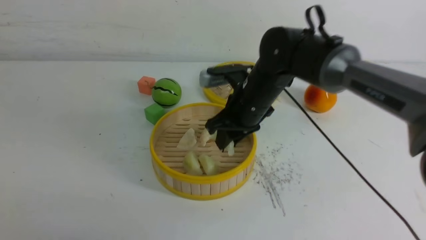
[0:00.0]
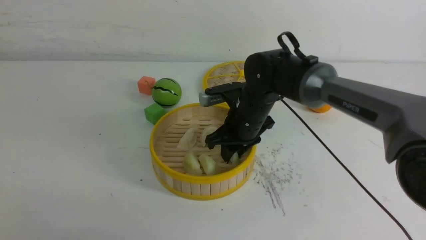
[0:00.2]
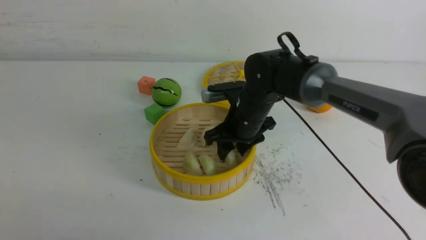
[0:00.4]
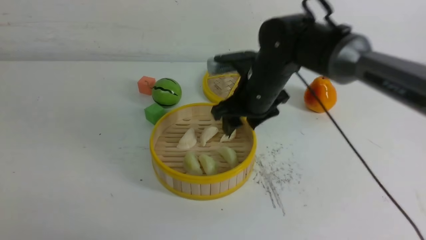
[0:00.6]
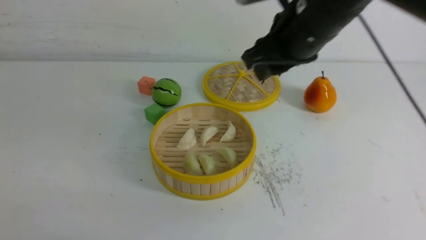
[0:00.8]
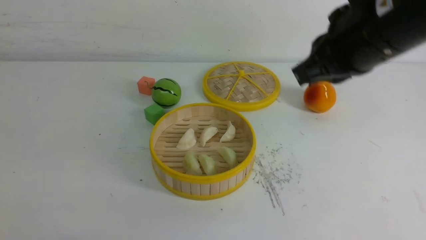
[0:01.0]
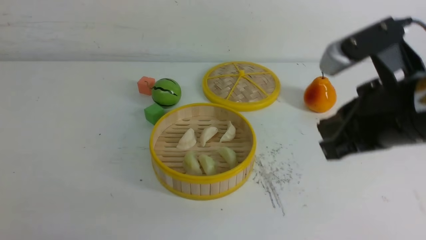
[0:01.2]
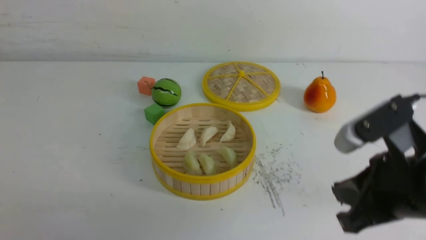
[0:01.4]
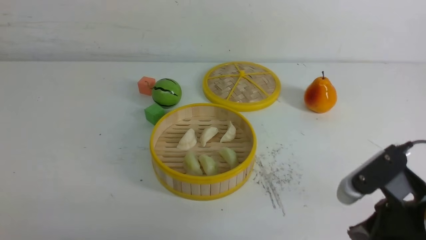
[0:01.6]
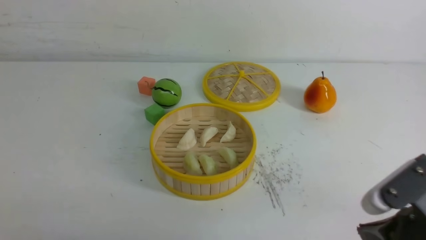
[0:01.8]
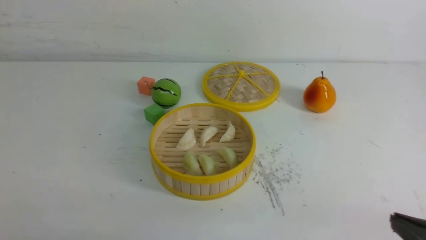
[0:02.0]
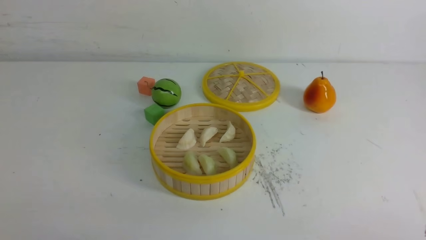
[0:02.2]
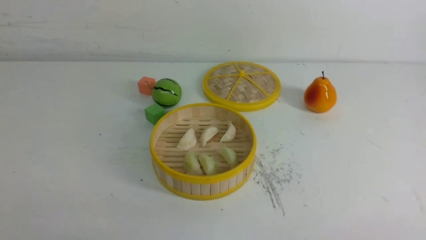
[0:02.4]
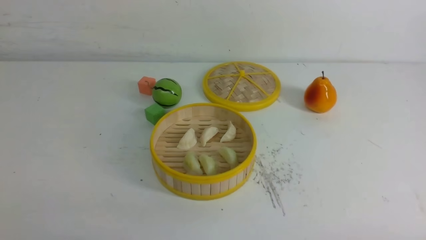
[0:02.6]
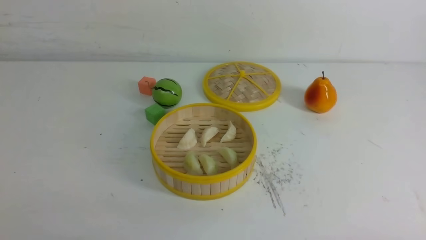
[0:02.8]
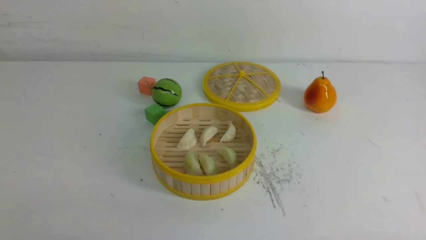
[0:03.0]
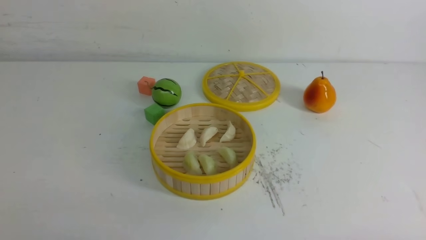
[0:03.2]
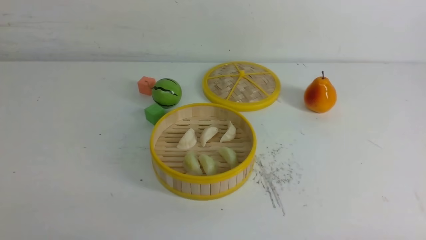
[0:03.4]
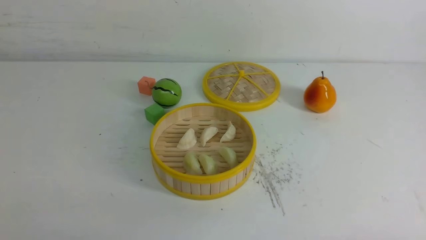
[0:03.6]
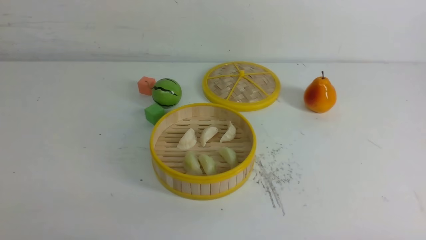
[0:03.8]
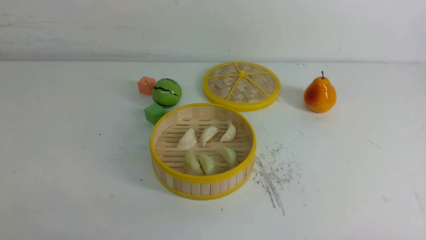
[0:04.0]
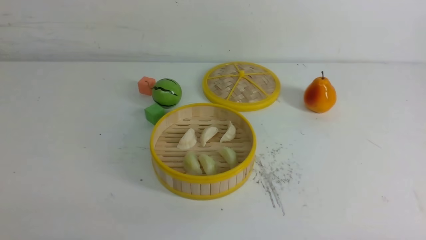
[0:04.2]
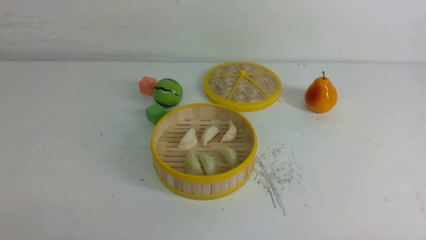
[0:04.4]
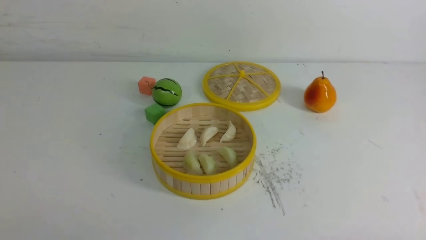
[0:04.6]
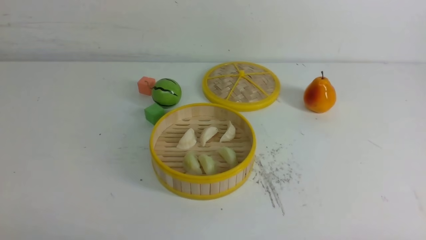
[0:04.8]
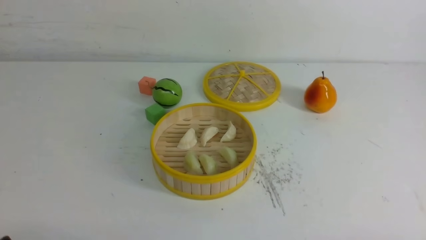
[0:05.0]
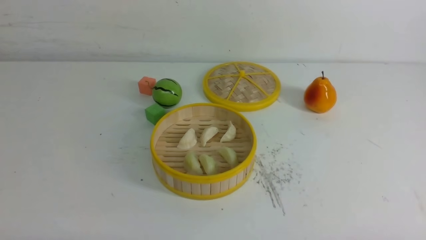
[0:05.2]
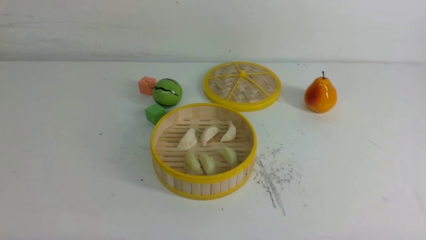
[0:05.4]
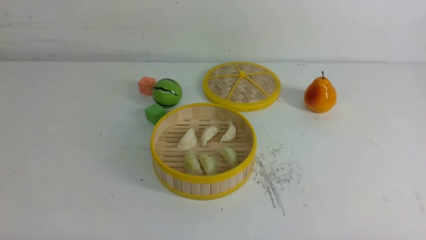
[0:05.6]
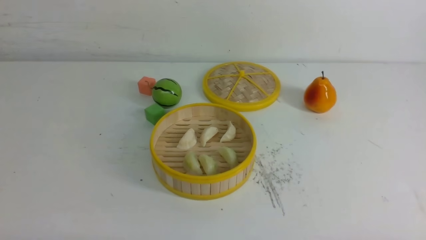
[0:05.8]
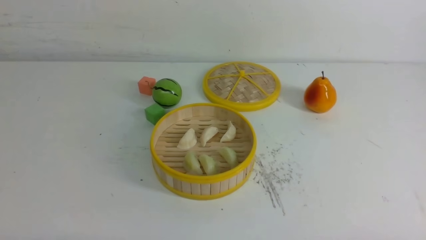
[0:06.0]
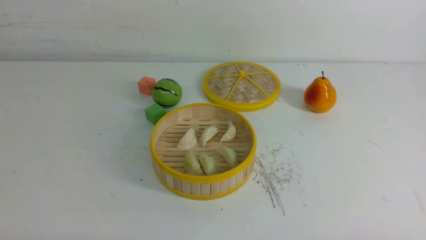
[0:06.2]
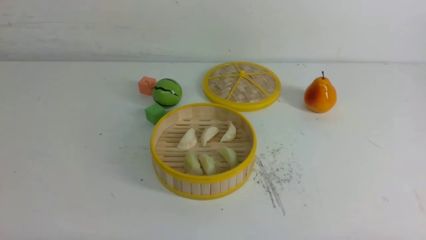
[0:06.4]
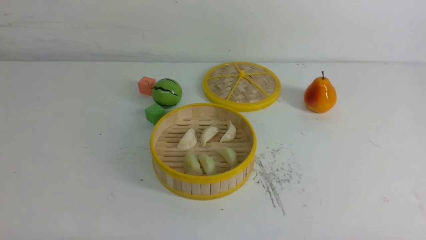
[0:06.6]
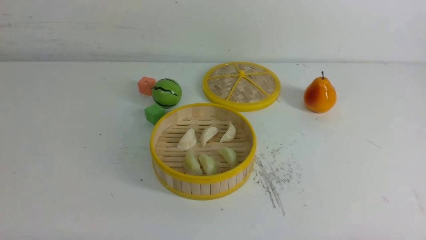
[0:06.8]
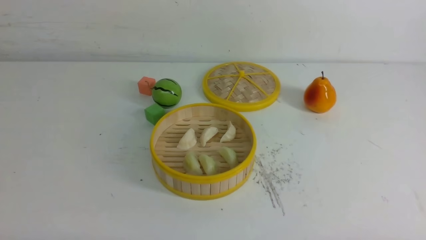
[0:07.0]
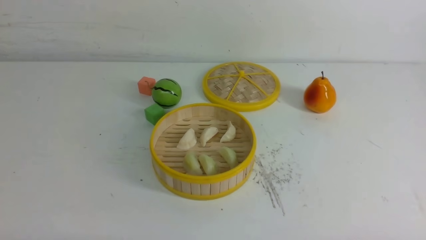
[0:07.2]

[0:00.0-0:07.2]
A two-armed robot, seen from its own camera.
Task of the whole recording: put the dumplings into the steamer on the white table.
0:00.0 to 0:01.4: The right gripper goes roughly 25 cm backward and to the right, and closes its fingers.
0:01.4 to 0:02.8: The right gripper heads backward, to the right and downward, covering approximately 20 cm.
0:05.8 to 0:07.2: Both grippers stay about where they are.

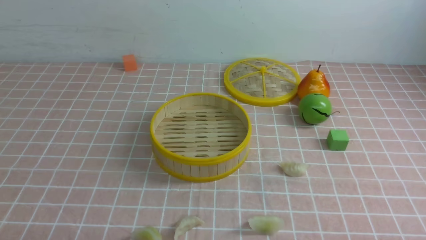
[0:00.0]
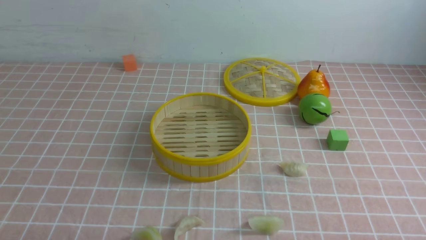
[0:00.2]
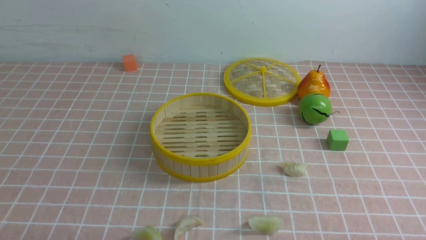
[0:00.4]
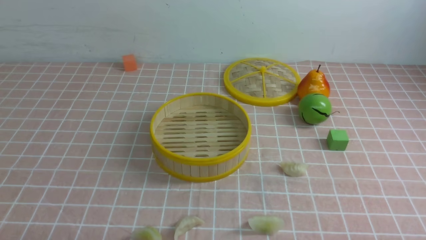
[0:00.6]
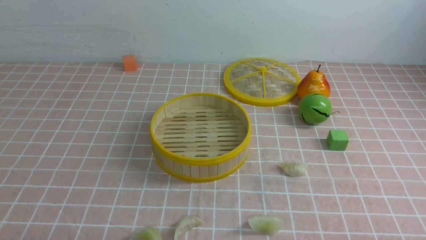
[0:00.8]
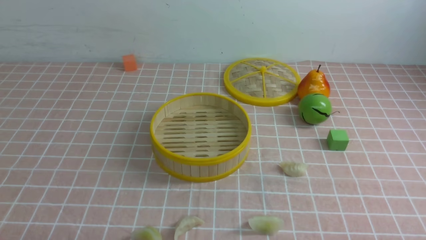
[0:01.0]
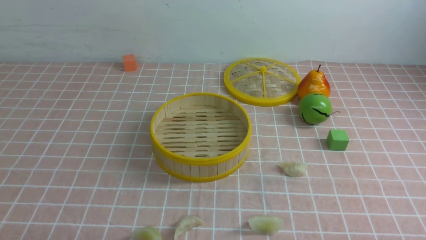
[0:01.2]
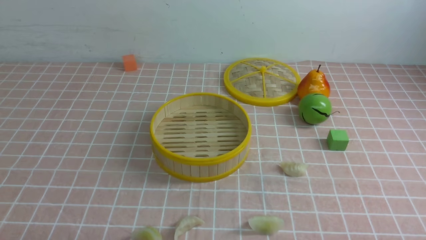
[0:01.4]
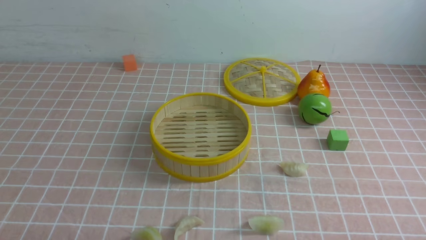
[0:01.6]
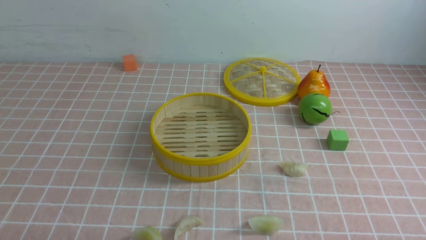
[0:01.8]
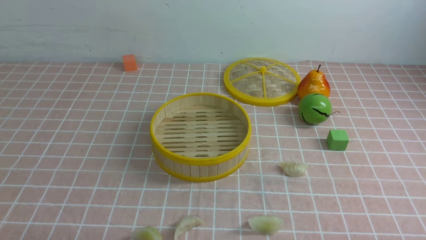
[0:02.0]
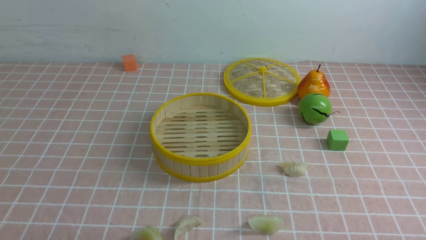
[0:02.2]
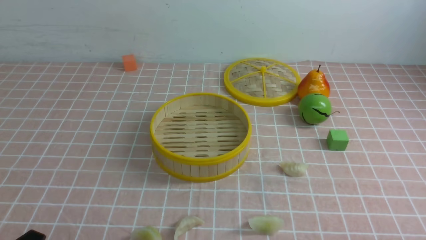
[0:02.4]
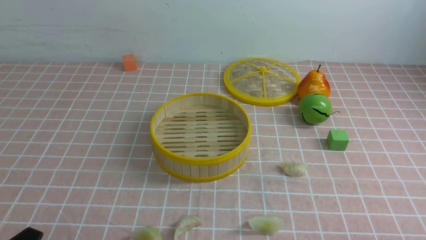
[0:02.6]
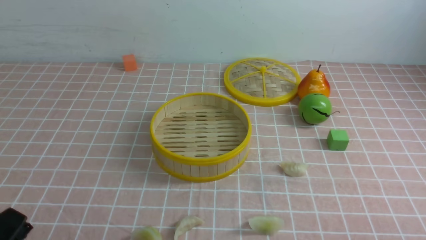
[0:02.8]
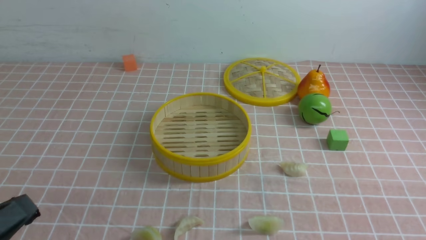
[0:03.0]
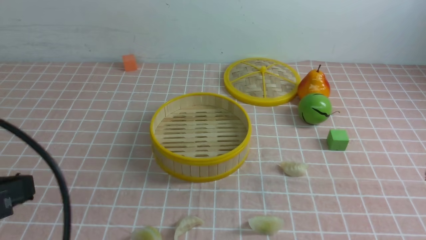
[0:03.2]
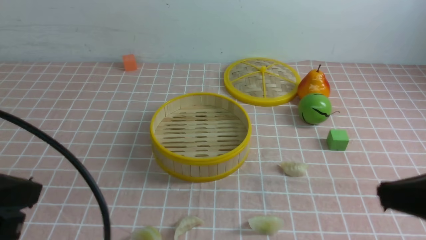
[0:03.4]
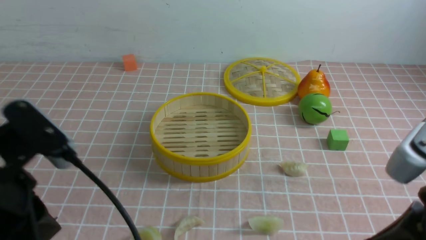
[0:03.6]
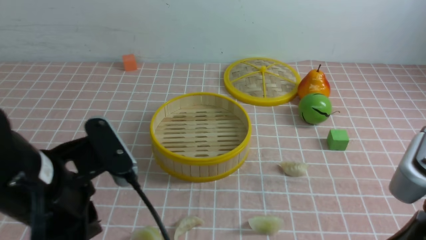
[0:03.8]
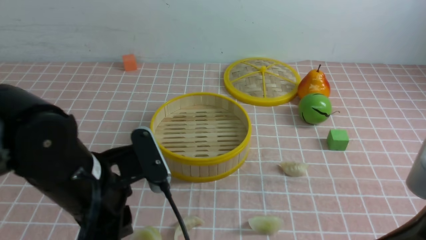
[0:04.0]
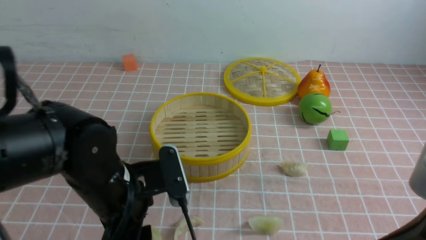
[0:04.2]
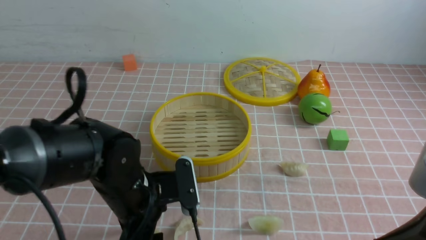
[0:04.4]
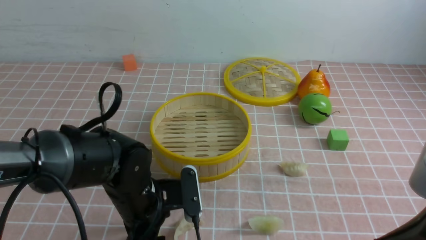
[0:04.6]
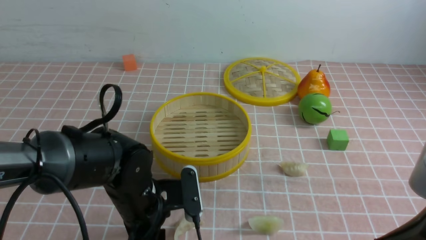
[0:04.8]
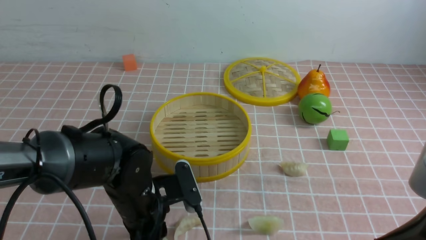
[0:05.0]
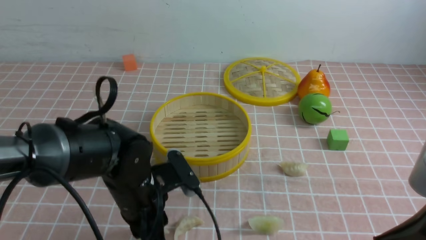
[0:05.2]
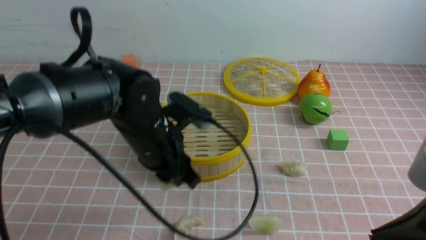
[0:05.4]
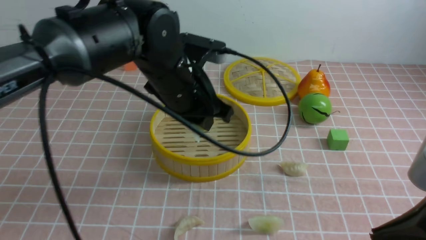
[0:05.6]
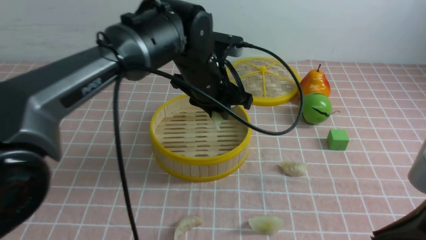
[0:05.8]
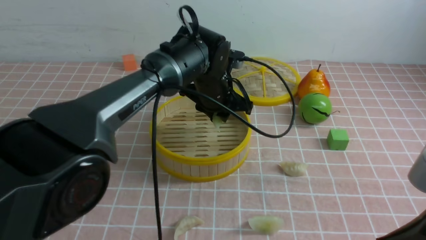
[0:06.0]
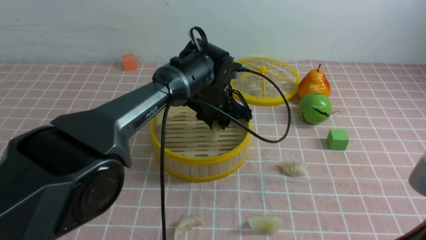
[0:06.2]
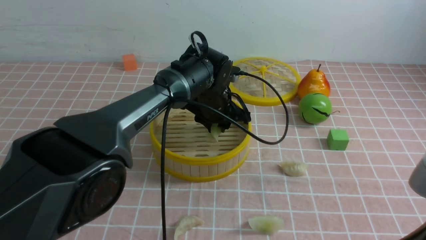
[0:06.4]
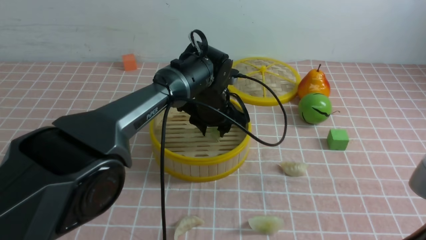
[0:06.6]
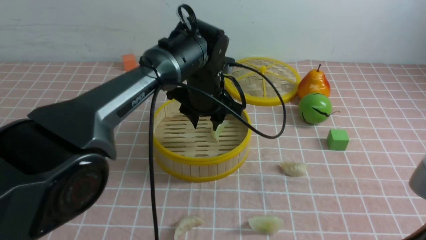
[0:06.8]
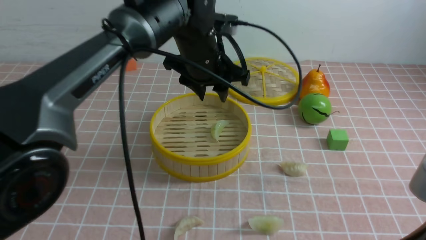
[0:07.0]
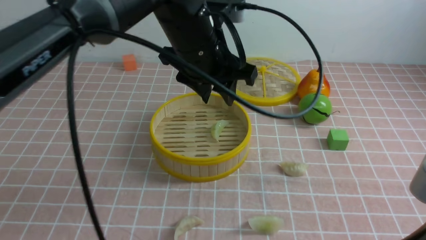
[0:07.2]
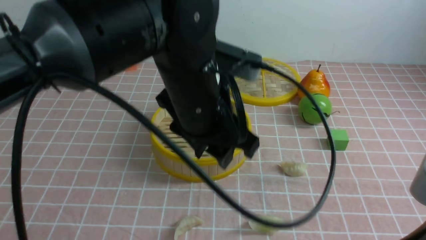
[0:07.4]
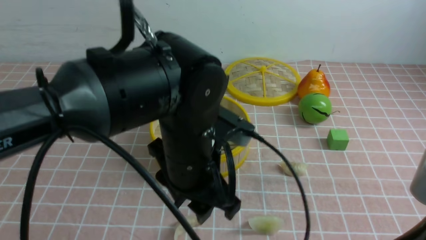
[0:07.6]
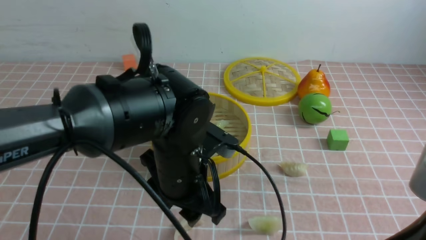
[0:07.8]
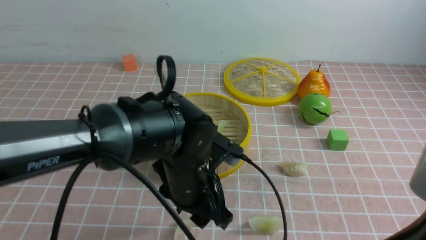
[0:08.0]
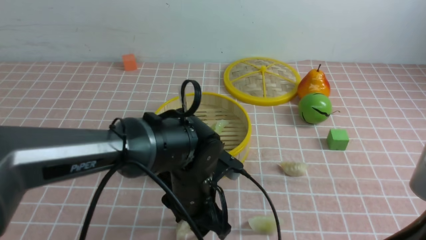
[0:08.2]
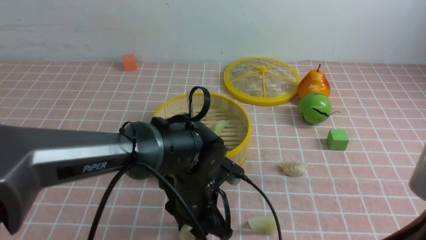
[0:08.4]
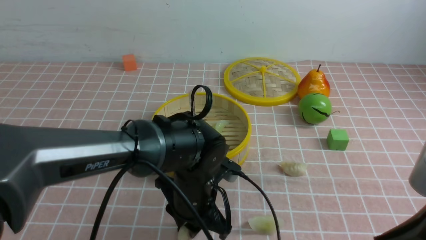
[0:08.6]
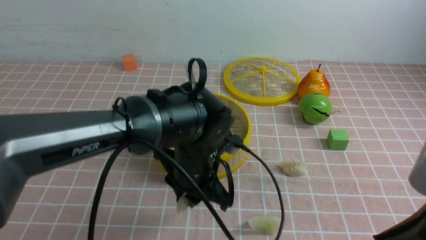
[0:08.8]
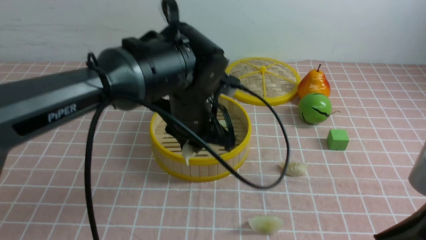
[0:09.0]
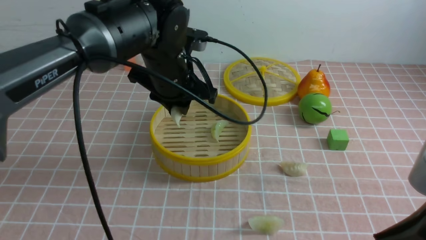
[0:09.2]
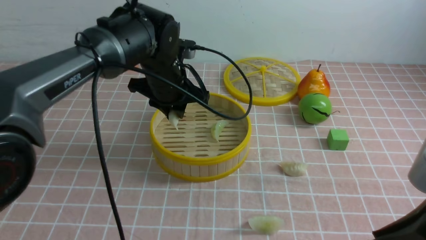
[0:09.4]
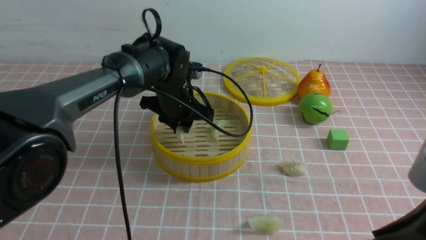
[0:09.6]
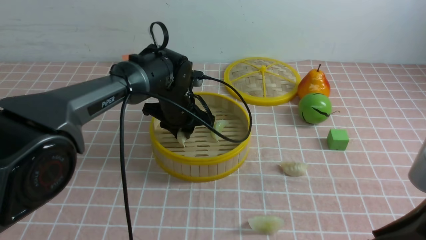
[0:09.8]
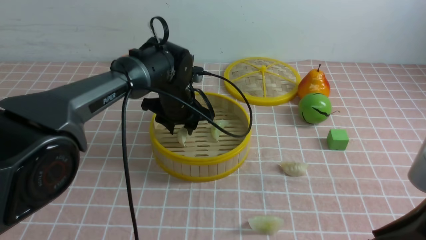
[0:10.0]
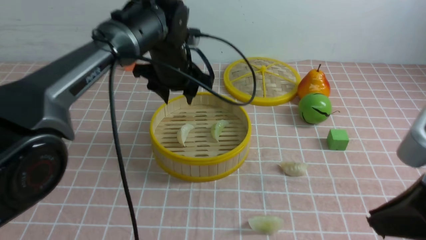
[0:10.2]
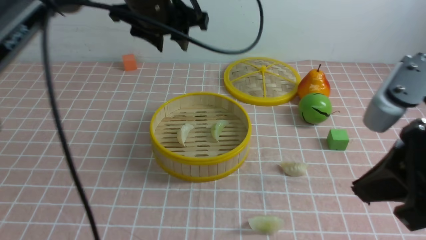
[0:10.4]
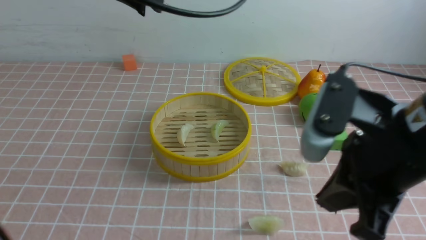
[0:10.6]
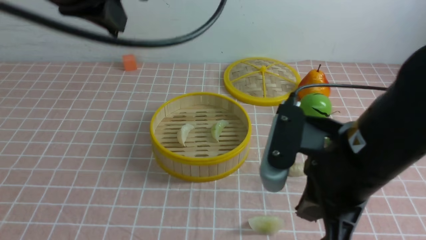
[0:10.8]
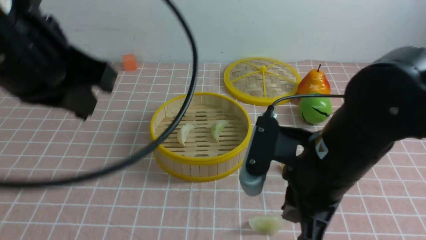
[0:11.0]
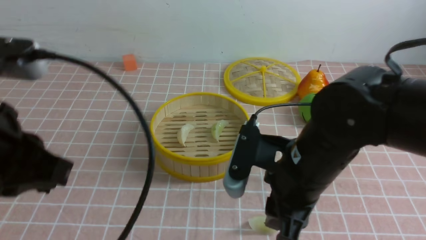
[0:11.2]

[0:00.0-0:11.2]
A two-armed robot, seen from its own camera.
Task of the whole recording: put the dumplings into the steamer on the table with the pink tablecloth.
Step, 0:00.0 to 0:05.0: use the left arm to grab a dumpling.
Step, 0:05.2 to 0:07.0: use the left arm to put the dumpling into the steamer.
Step, 0:07.4 to 0:08.6: use the left arm to grab a dumpling.
Step, 0:08.8 to 0:10.0: use the left arm to put the dumpling into the steamer.
0:01.6 to 0:03.2: The left gripper shifts some 15 cm upward, and closes its fingers.
0:03.2 to 0:04.8: The right gripper is displaced to the left by some 5 cm; the left gripper goes approximately 25 cm forward, downward and to the right, and opens its fingers.
0:04.8 to 0:06.4: The left gripper heads forward and to the right, covering about 20 cm, and closes.
0:06.4 to 0:08.0: The left gripper goes approximately 20 cm backward, and opens.
0:08.0 to 0:09.6: The left gripper goes some 15 cm forward, and closes its fingers.
0:09.6 to 0:11.2: The left gripper shifts approximately 30 cm backward, upward and to the left, and closes up. Meanwhile the right gripper travels to the left, forward and downward by approximately 15 cm.
